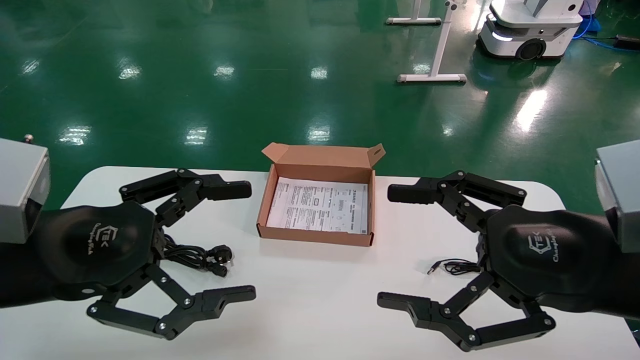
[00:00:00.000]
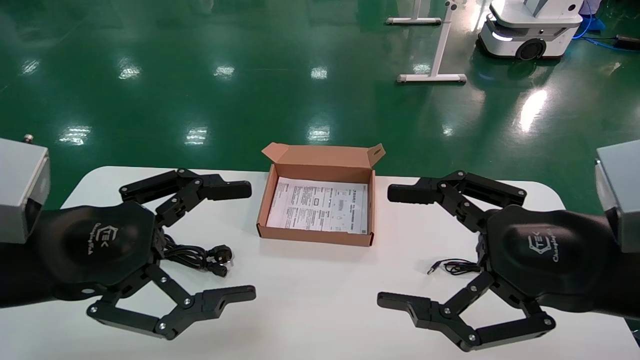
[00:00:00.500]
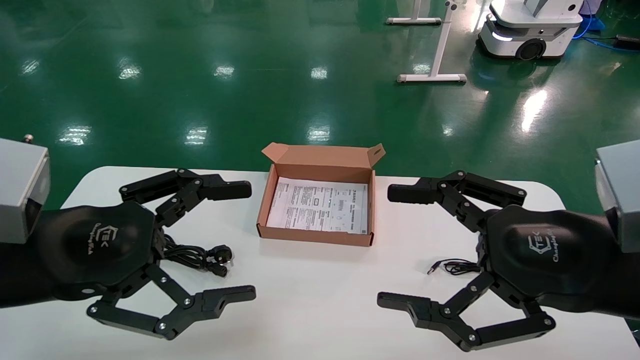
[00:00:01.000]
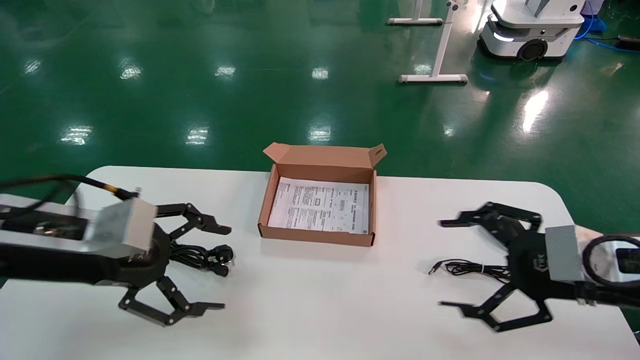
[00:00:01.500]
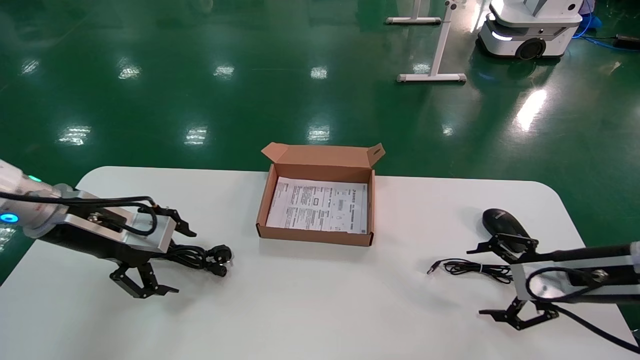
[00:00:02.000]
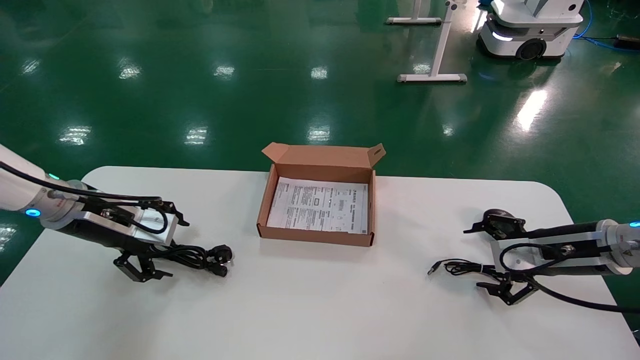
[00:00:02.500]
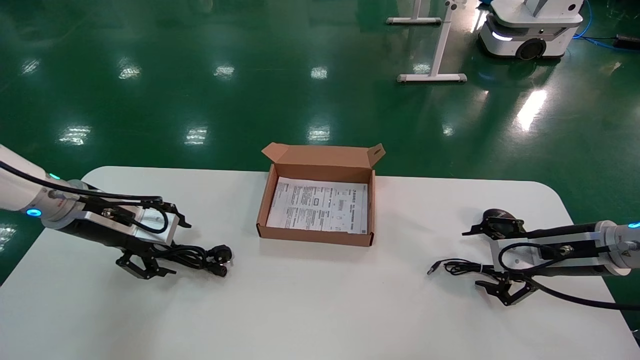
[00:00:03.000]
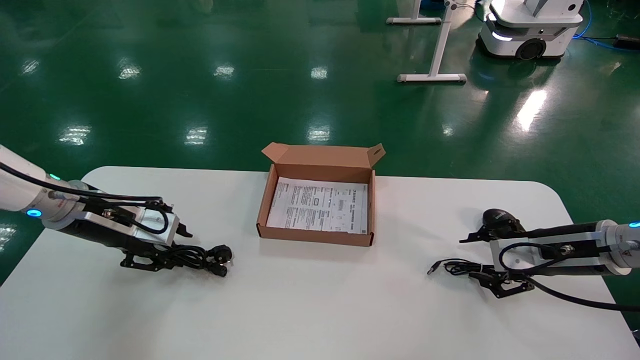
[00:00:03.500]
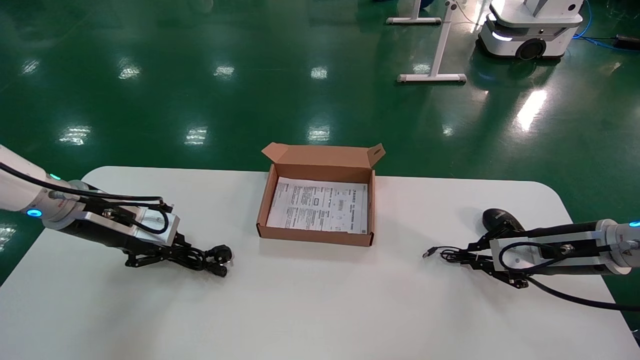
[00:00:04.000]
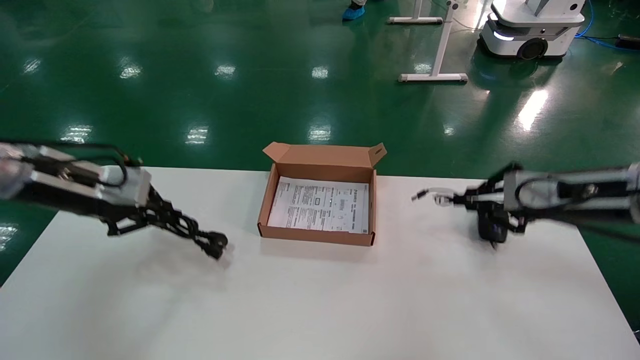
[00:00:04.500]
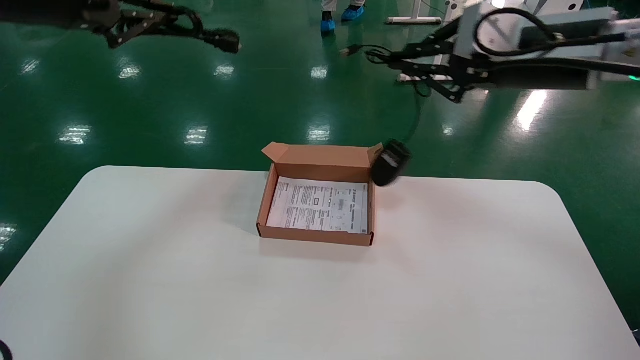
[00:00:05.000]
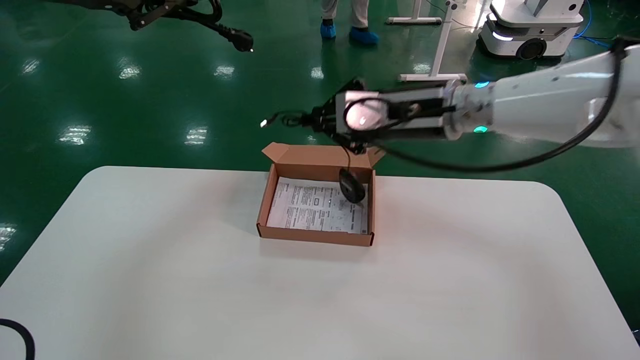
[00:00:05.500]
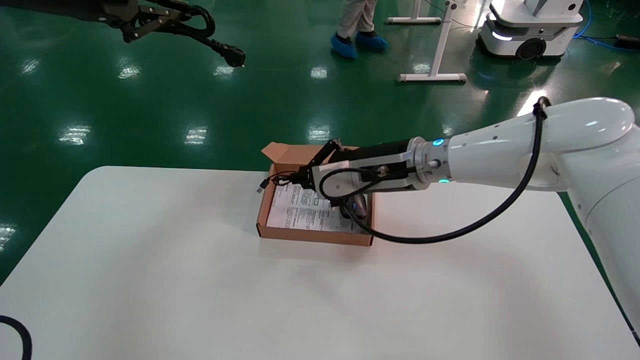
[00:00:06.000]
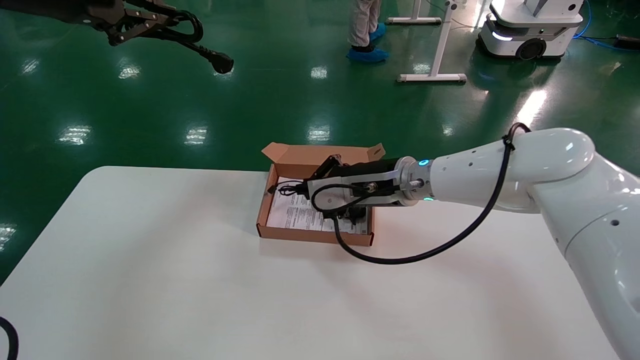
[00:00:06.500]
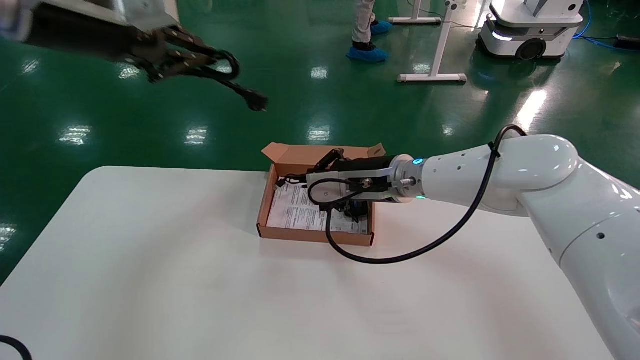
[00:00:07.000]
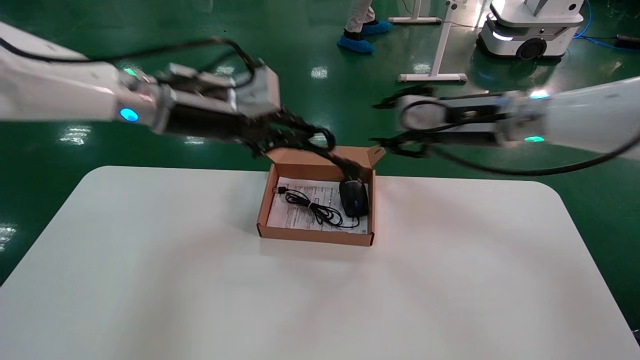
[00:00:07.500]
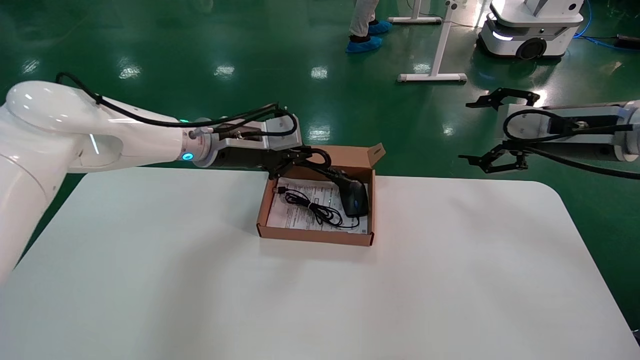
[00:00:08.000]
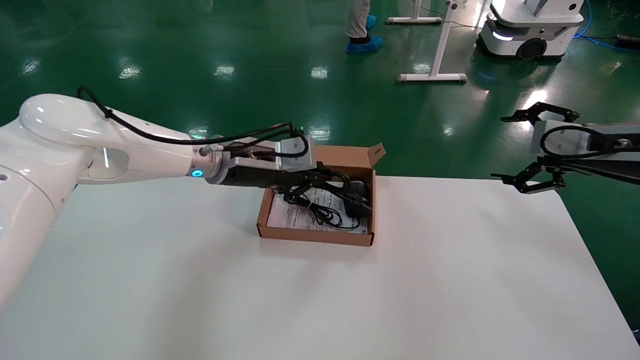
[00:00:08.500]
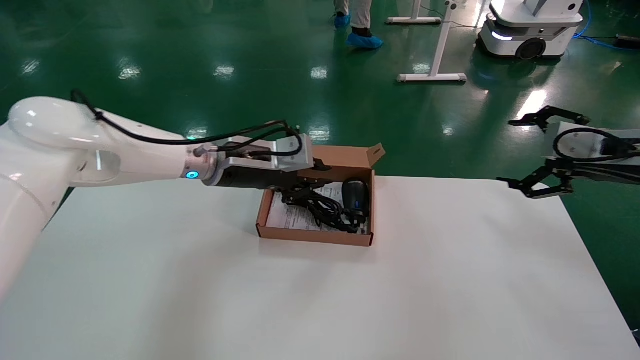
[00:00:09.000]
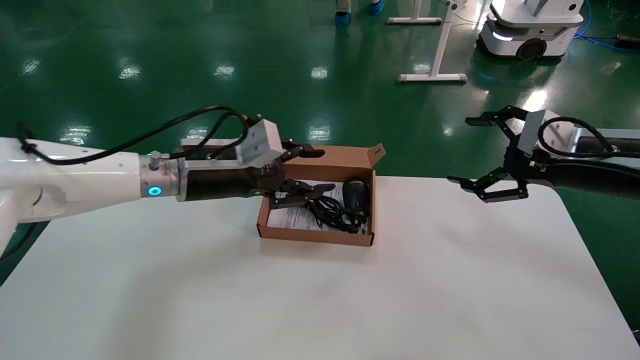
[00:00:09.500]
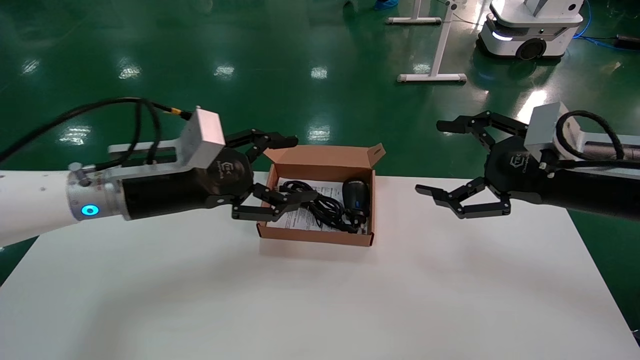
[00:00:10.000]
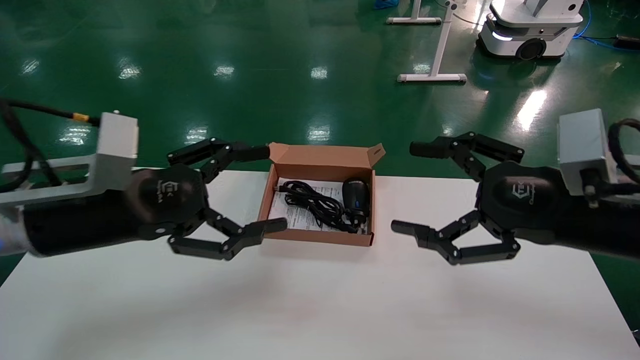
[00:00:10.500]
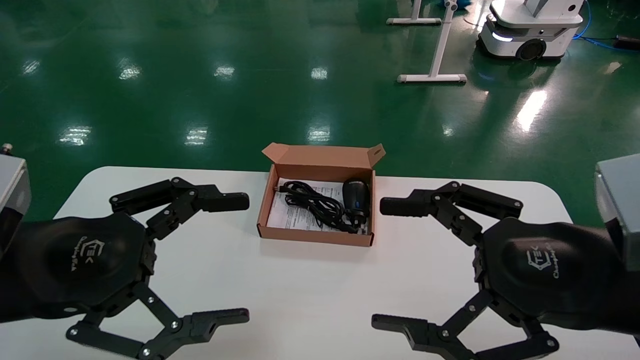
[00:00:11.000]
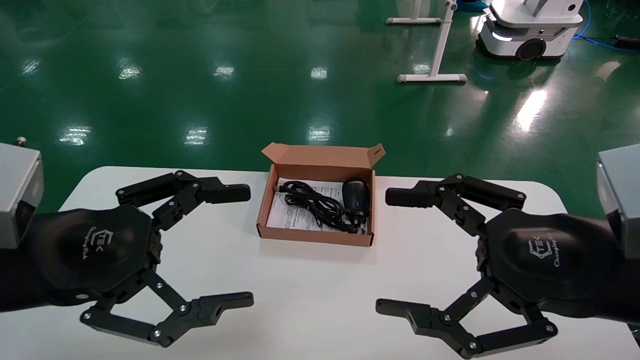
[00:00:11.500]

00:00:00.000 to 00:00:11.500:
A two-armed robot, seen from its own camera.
Step, 00:00:01.500 to 00:00:04.000: Grab and lift both the mouse and power cord from the accessory packaging area at the same time.
Step, 00:00:04.500 to 00:00:09.500: Place the mouse and power cord into the box.
00:00:00.000 to 00:00:02.000: The right gripper heads forward, to the right and downward, covering some 20 cm. Meanwhile the left gripper is displaced forward by approximately 15 cm.
00:00:02.000 to 00:00:04.000: The right gripper closes its fingers. Meanwhile the left gripper closes up.
00:00:04.000 to 00:00:06.000: The right gripper moves to the left, approximately 25 cm. Meanwhile the left gripper is displaced upward by about 30 cm.
00:00:06.000 to 00:00:07.500: The left gripper travels downward and to the right by some 20 cm; the right gripper is displaced to the right and upward by about 15 cm.
00:00:07.500 to 00:00:09.500: The left gripper is displaced downward by about 10 cm, and opens its fingers; the right gripper heads to the right and backward, covering roughly 15 cm, and opens up.
00:00:09.500 to 00:00:11.500: Both grippers travel together backward and to the left, roughly 20 cm. The left gripper opens its fingers.

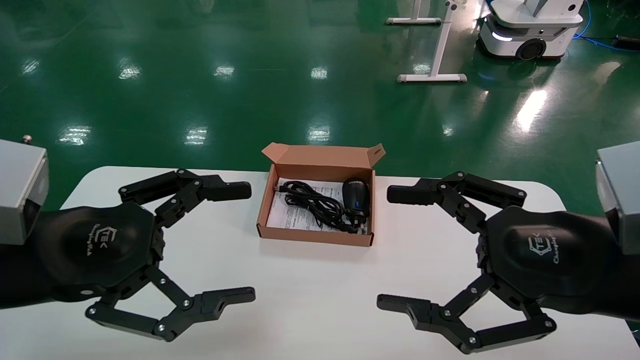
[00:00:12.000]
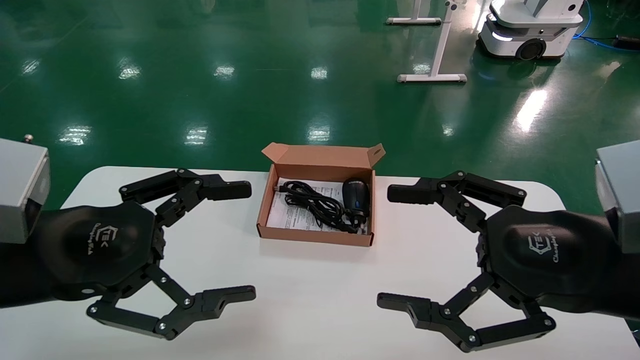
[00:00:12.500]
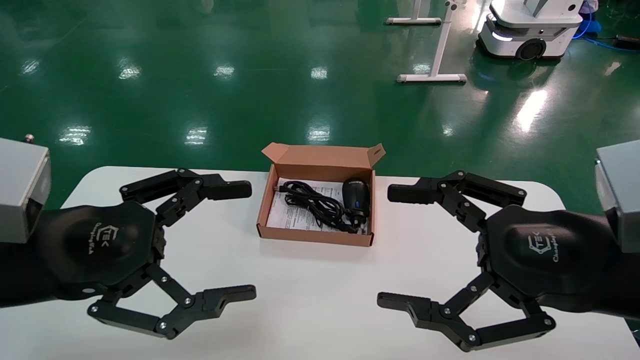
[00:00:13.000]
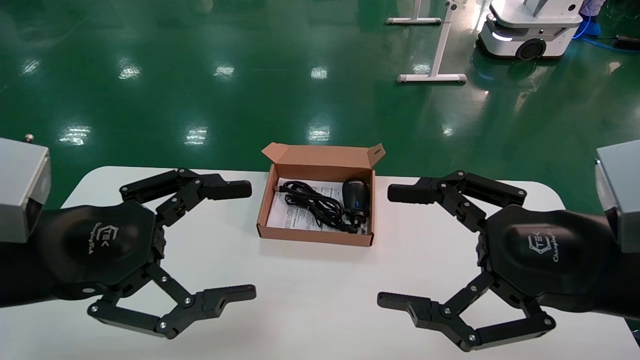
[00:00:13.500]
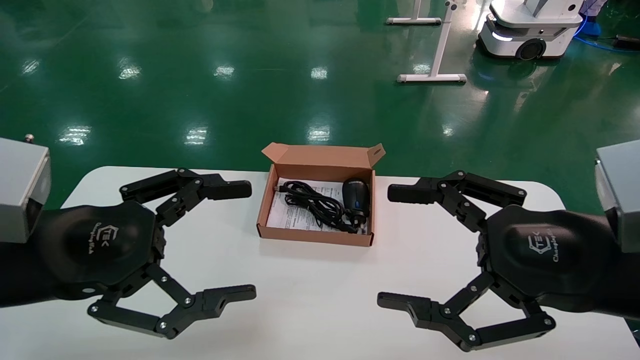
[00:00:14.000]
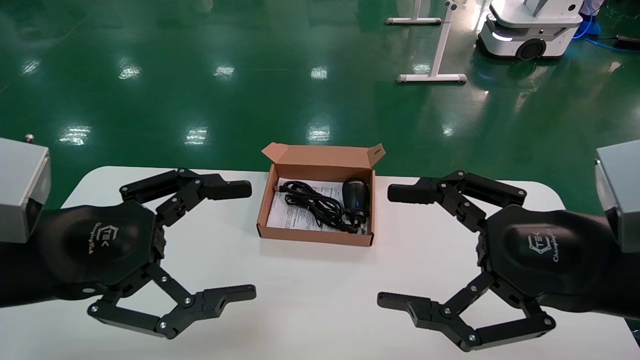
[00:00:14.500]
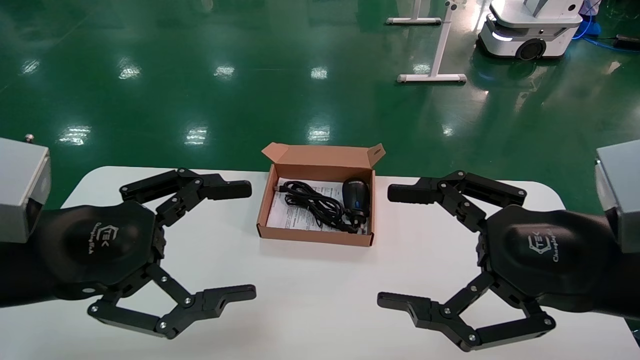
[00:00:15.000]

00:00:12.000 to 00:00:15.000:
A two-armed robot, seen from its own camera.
00:00:12.000 to 00:00:15.000: Neither gripper changes place.
